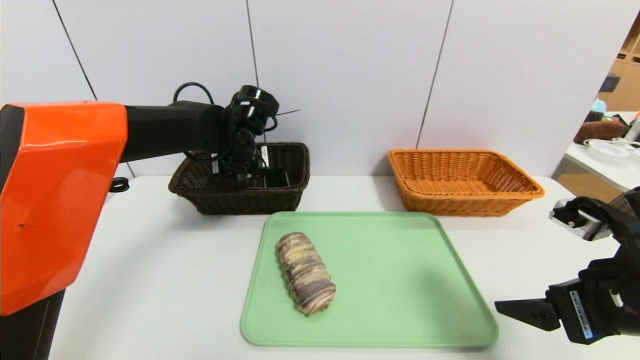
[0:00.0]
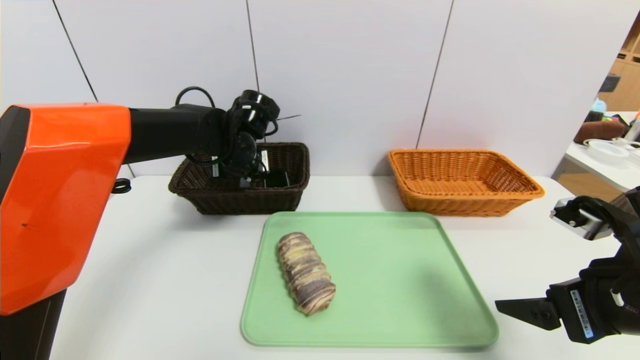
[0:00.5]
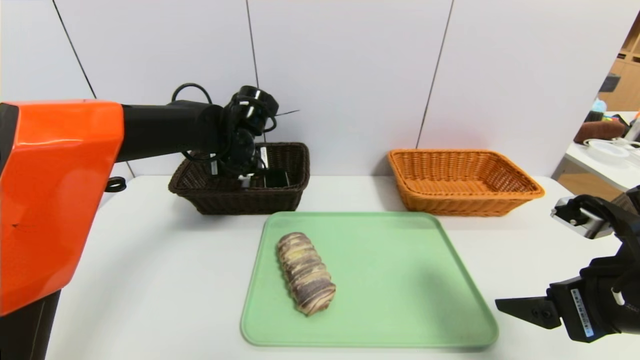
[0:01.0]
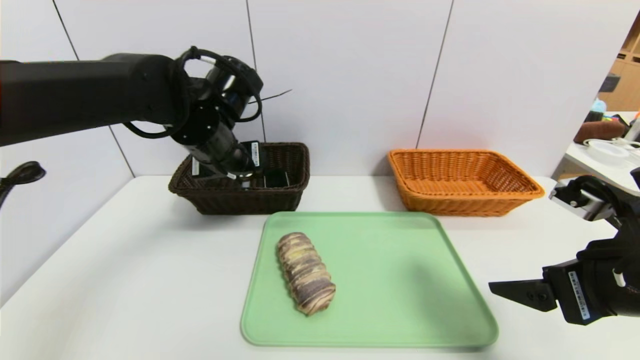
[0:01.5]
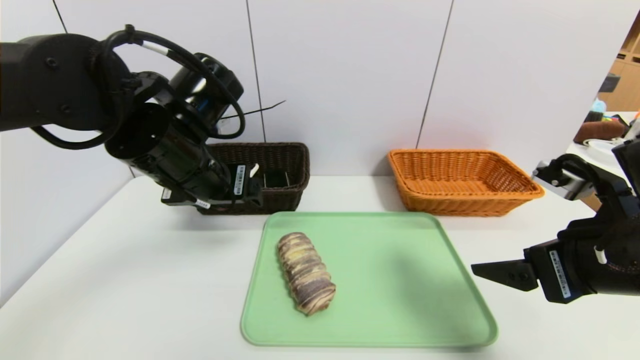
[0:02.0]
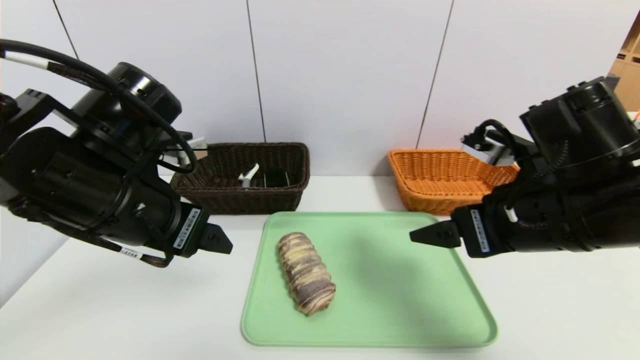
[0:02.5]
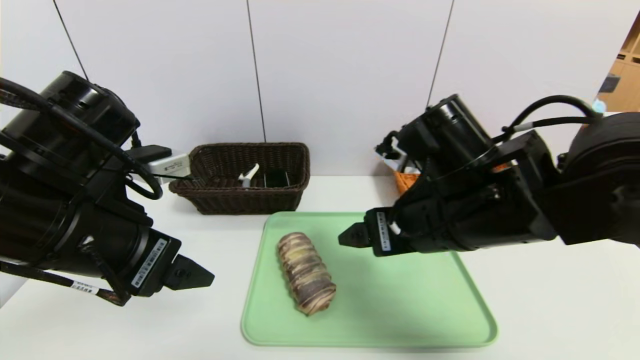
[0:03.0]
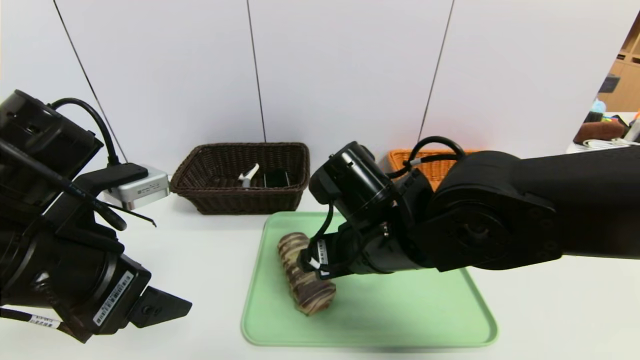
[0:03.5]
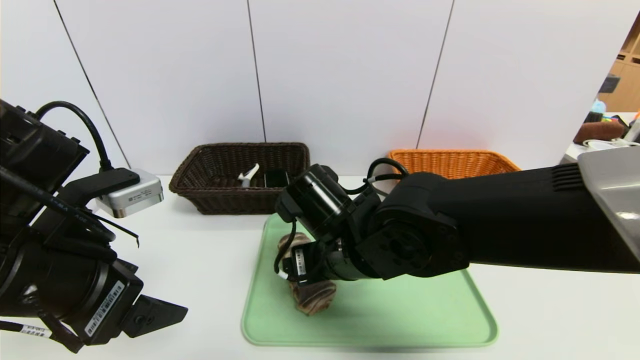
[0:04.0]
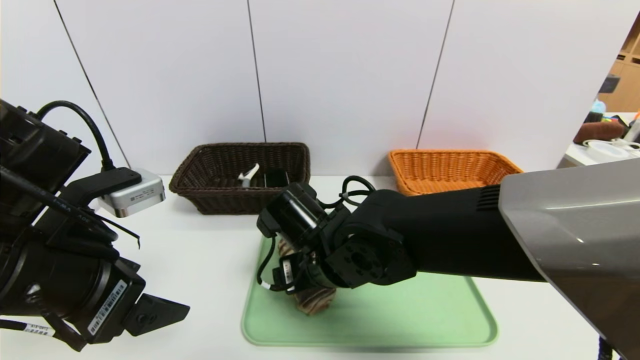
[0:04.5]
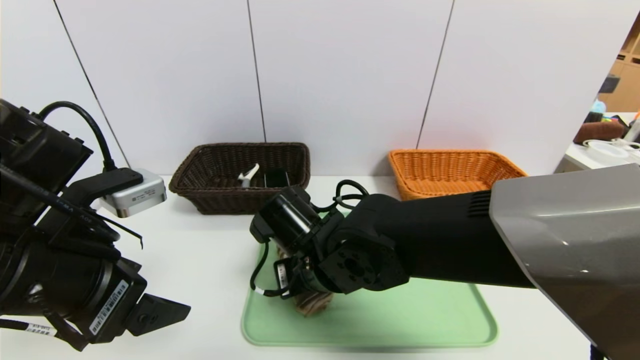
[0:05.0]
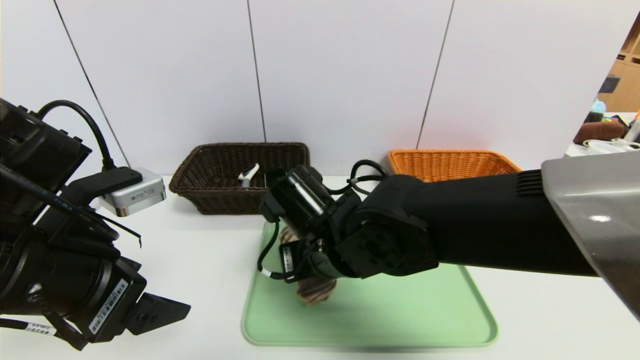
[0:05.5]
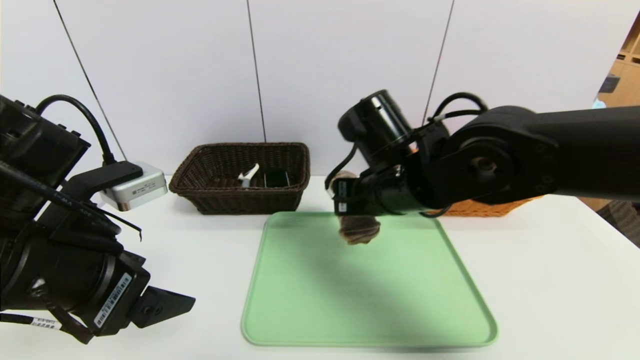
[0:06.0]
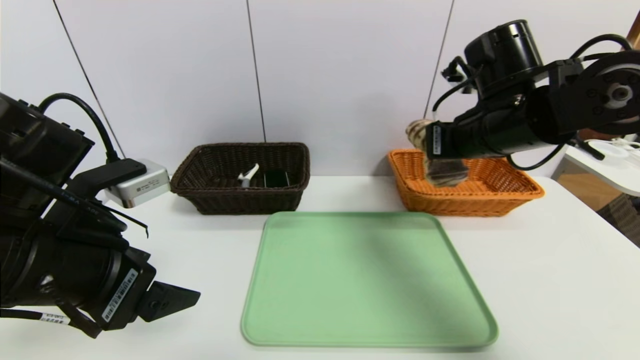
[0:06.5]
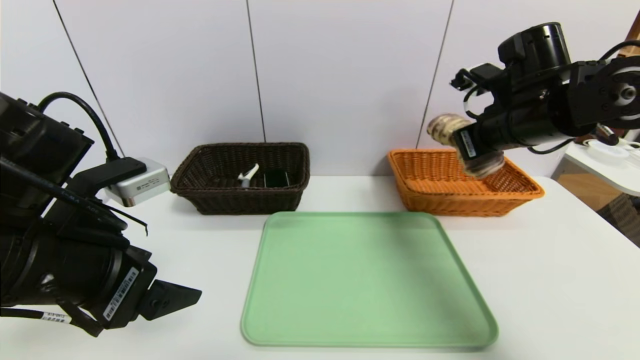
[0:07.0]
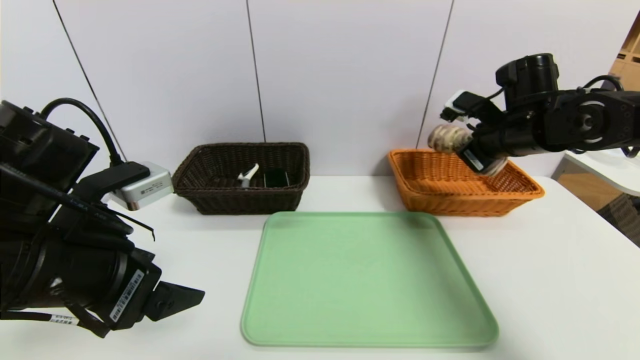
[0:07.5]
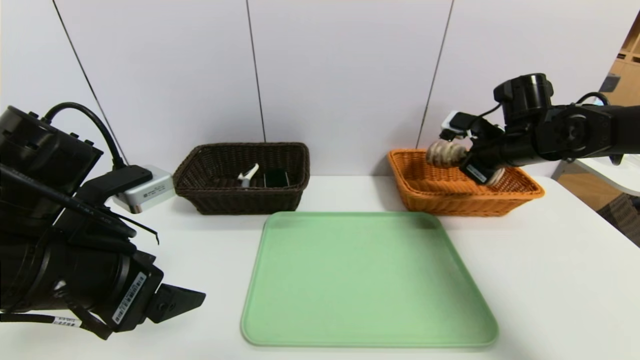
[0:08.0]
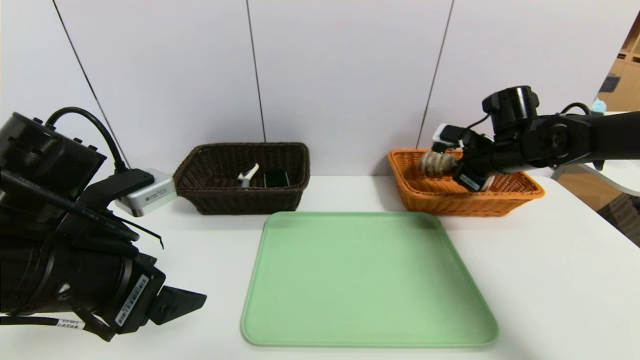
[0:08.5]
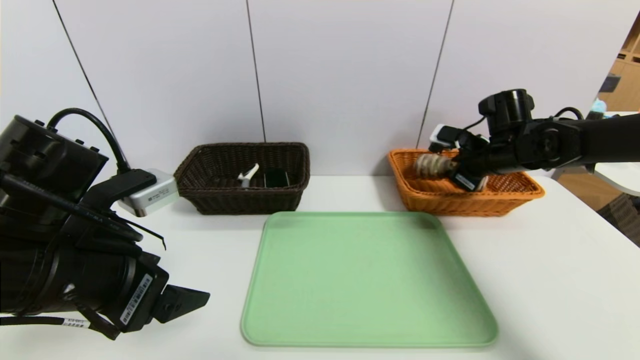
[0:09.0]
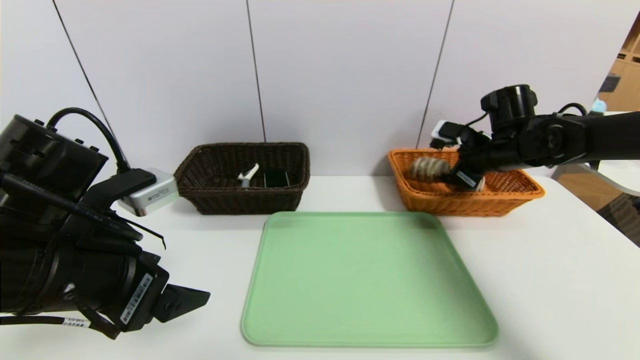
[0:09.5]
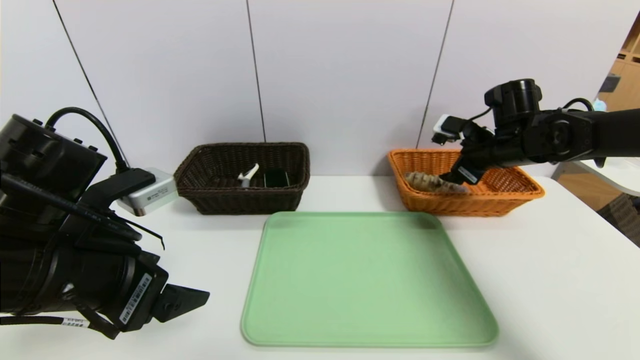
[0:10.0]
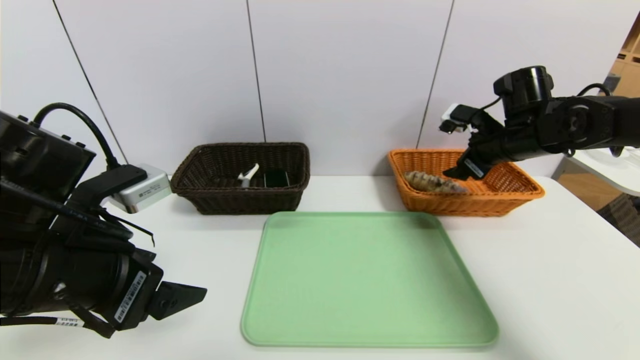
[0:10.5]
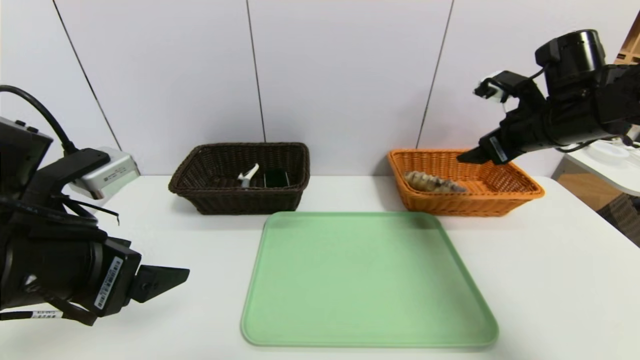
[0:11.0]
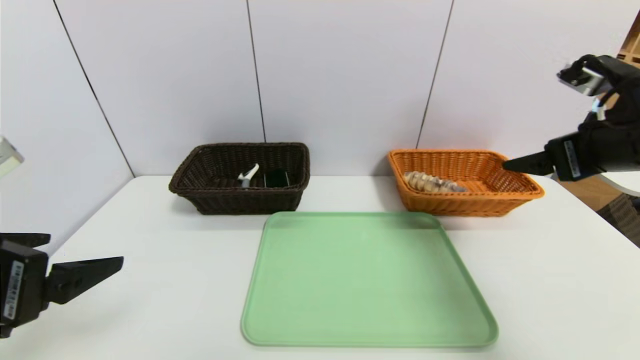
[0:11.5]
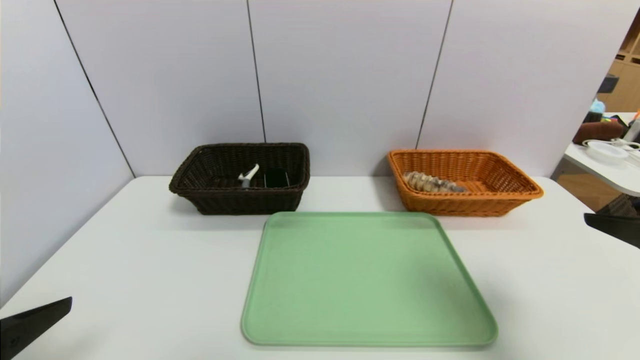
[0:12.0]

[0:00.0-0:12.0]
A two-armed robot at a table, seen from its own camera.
Task of the whole recording: place the food in the right basket with the right gripper, and place the non food items in the left basket with the left gripper.
Step, 0:01.5 to 0:10.0: Grasp the long bread and put it in the right basket.
0:00.0 to 0:02.0: The left gripper travels backward and upward by approximately 15 cm, and opens up.
0:02.0 to 0:04.0: The left gripper shifts approximately 15 cm backward and to the left; the right gripper moves to the left, some 25 cm.
0:04.0 to 0:06.0: The right gripper travels to the right and upward by about 10 cm, and closes.
0:06.0 to 0:08.0: The right gripper goes roughly 25 cm to the right and forward.
0:08.0 to 0:10.0: The right gripper opens up.
0:10.0 to 0:12.0: The left gripper moves backward and to the left, roughly 15 cm; the right gripper travels backward by roughly 30 cm.

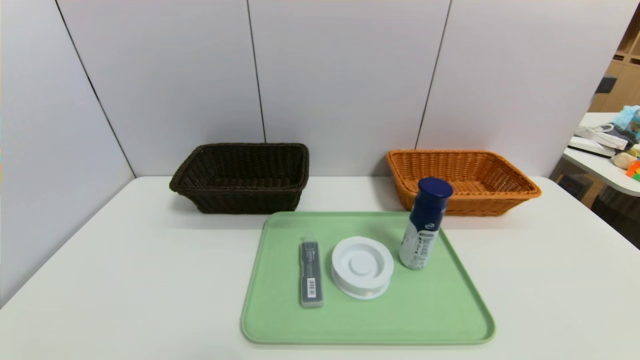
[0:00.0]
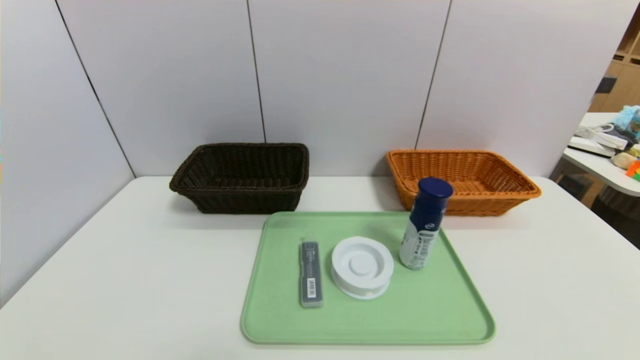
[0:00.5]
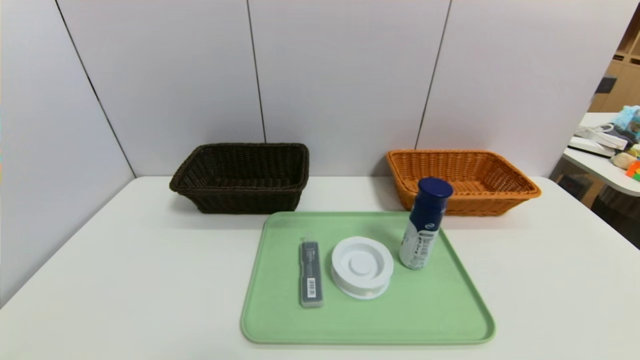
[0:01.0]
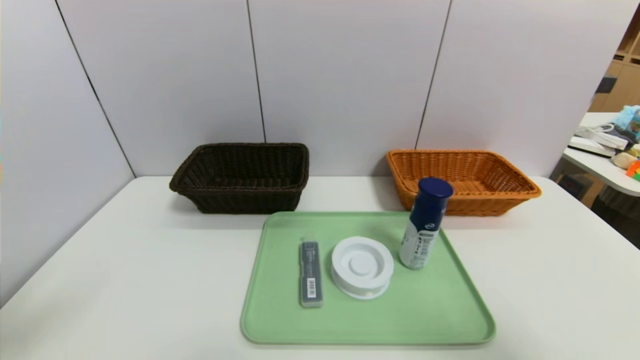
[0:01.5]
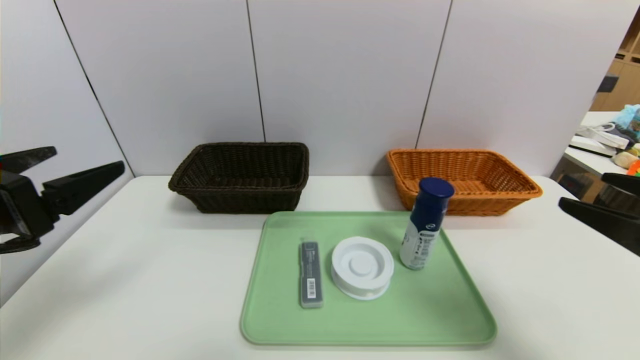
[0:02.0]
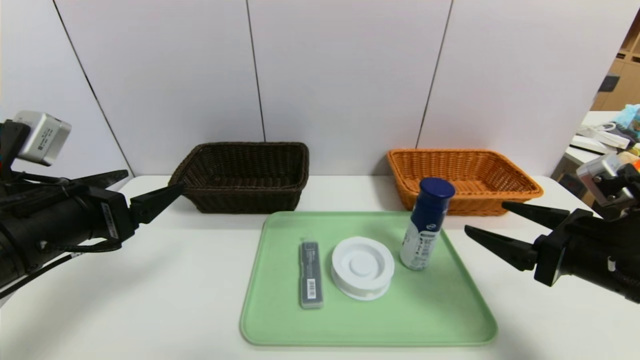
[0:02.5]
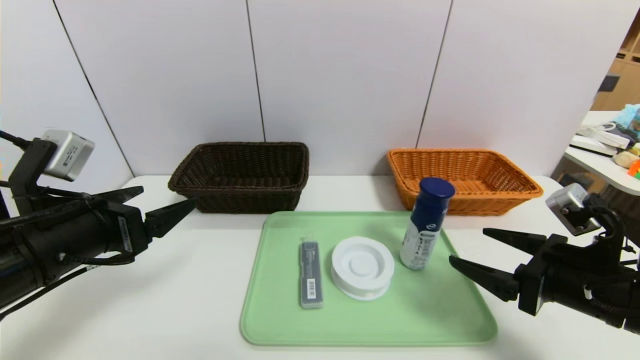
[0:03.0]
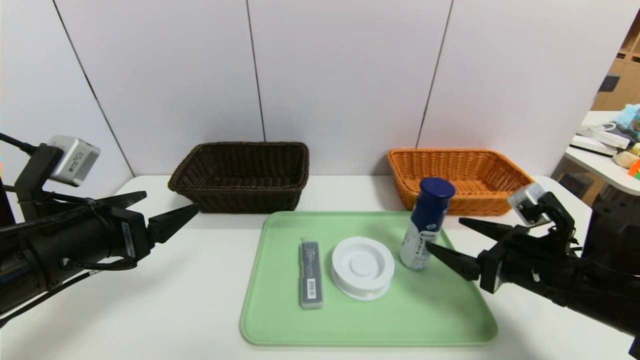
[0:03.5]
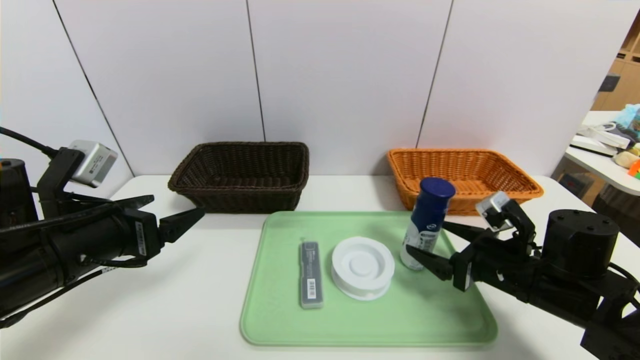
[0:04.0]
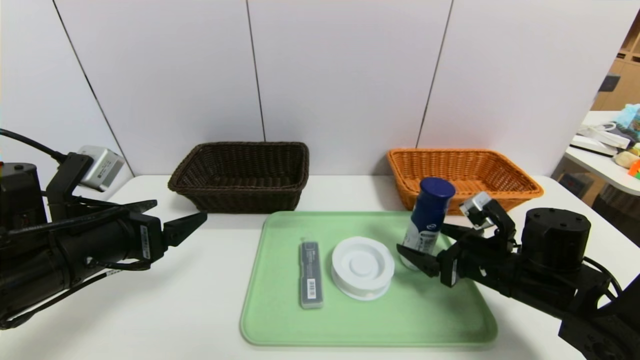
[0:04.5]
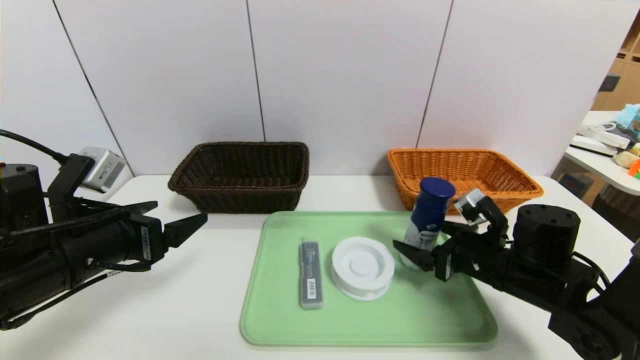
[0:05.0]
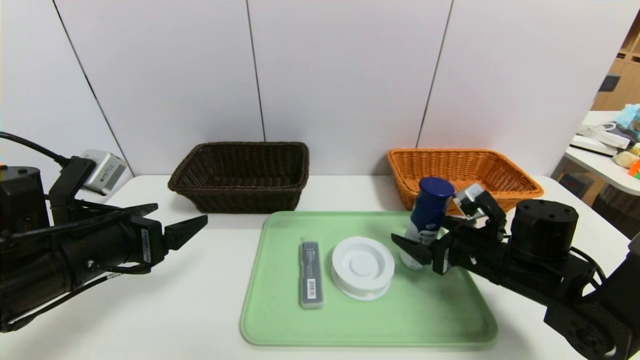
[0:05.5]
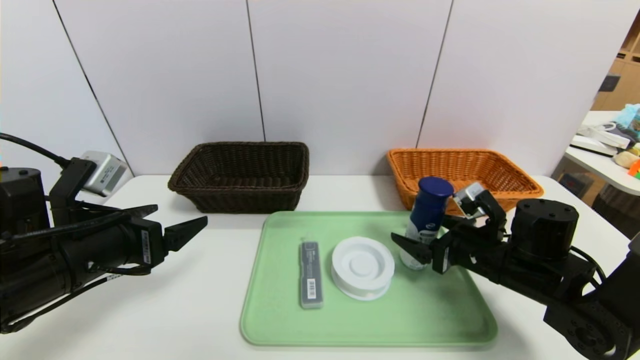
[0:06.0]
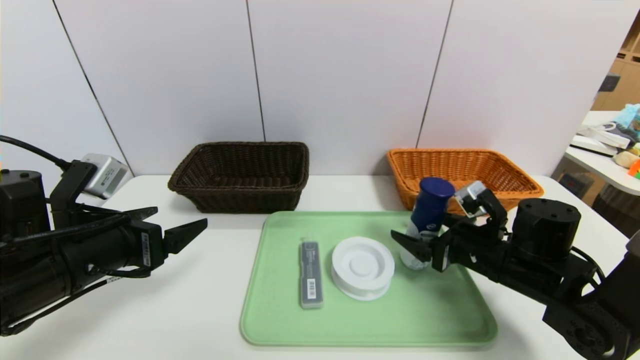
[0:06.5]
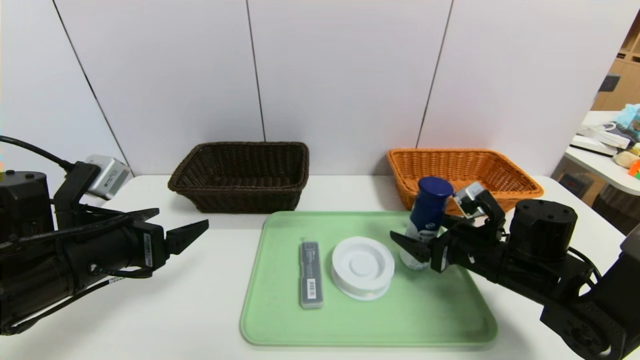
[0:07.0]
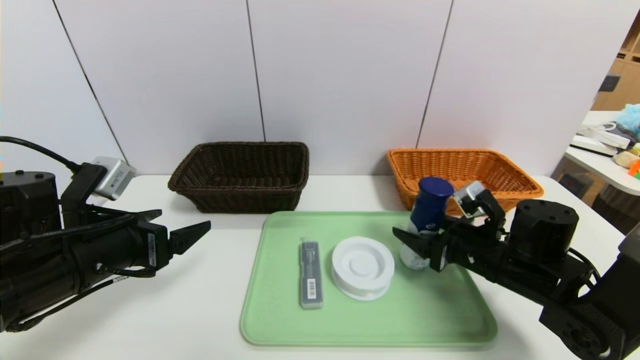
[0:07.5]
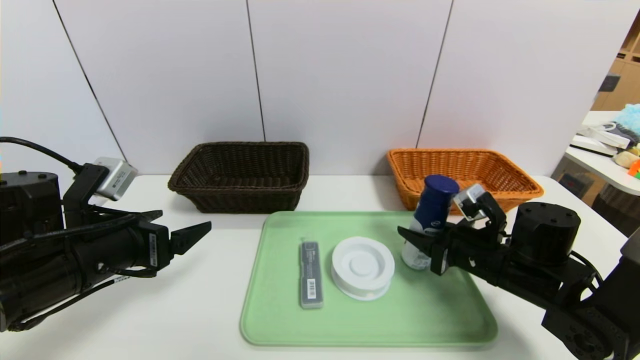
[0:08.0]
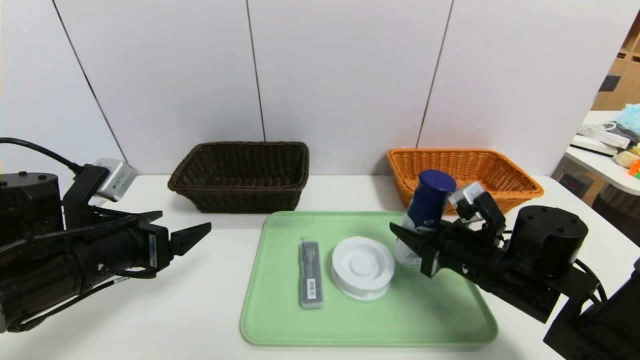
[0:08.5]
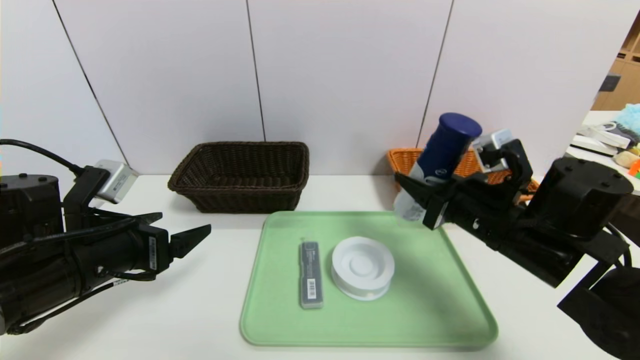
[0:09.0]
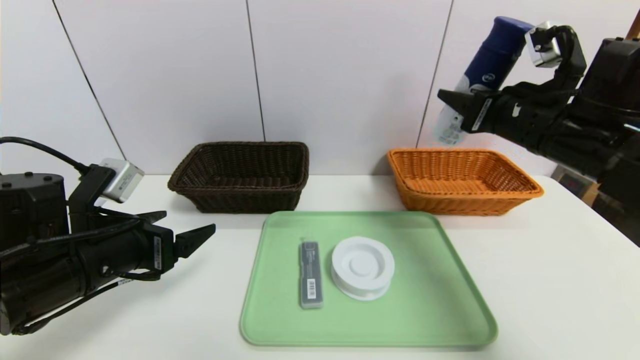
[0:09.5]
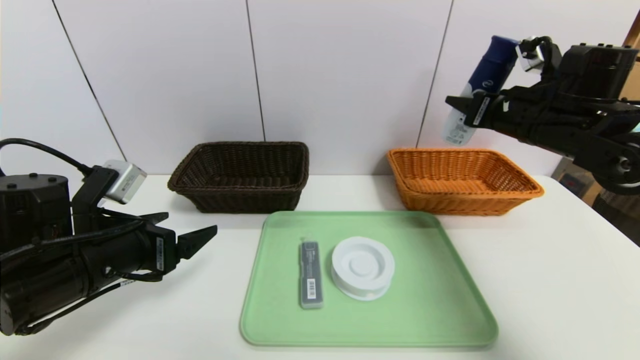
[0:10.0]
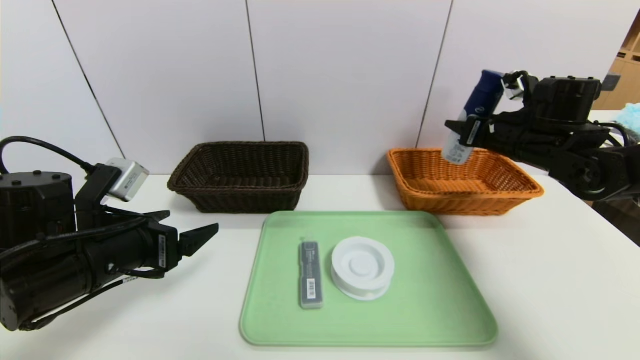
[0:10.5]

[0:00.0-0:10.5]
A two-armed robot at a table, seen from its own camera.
Task of the whole recording: place the food in the right basket with the right gripper, and place the non food items in the left basket with the left gripper.
0:00.0 to 0:02.0: Both grippers move upward and forward, roughly 25 cm.
0:02.0 to 0:04.0: The left gripper shifts about 10 cm downward and forward; the right gripper moves downward, forward and to the left, some 20 cm.
0:04.0 to 0:06.5: The grippers stay close to where they were, moving slightly.
0:06.5 to 0:08.5: The right gripper closes.
0:08.5 to 0:10.5: The right gripper shifts about 20 cm forward, upward and to the right.
